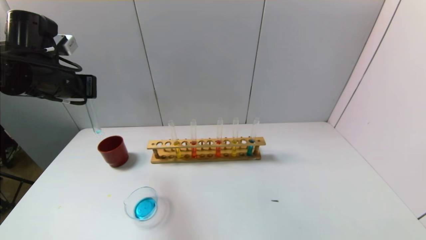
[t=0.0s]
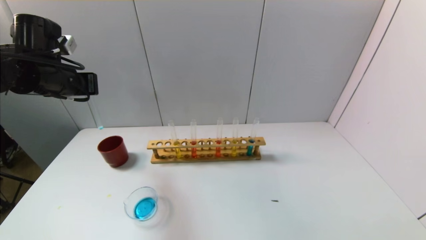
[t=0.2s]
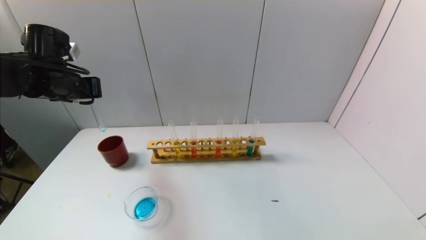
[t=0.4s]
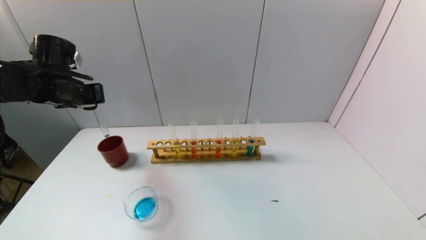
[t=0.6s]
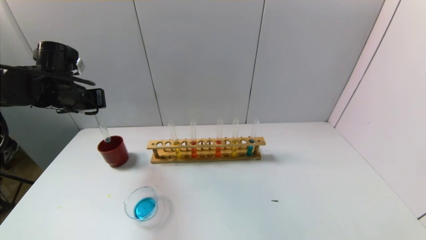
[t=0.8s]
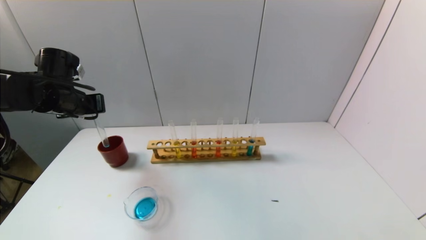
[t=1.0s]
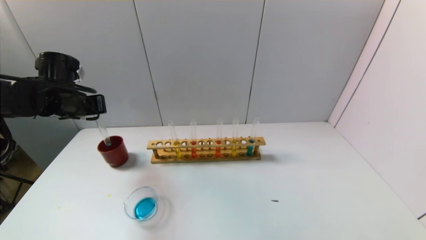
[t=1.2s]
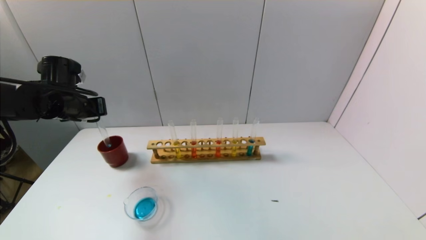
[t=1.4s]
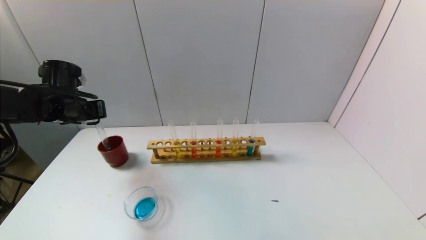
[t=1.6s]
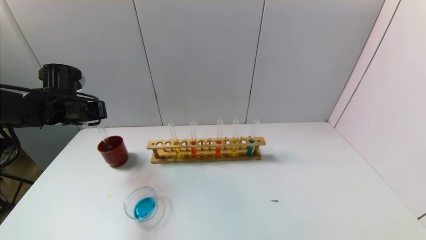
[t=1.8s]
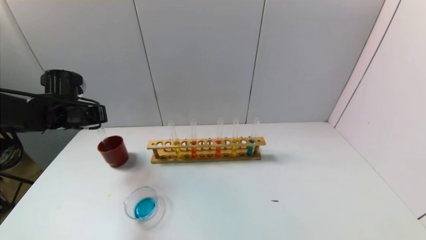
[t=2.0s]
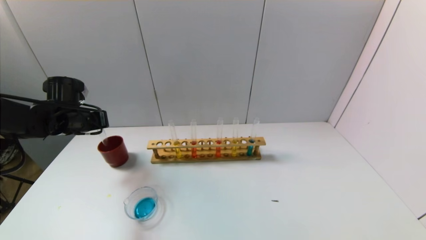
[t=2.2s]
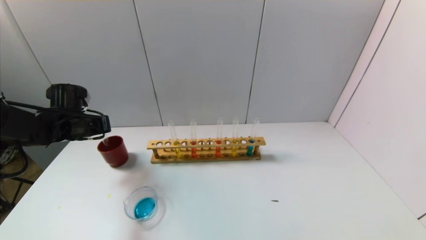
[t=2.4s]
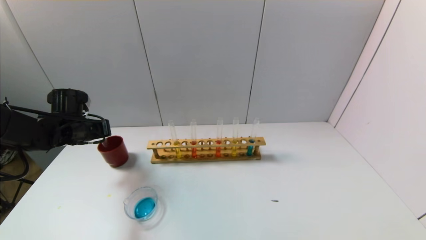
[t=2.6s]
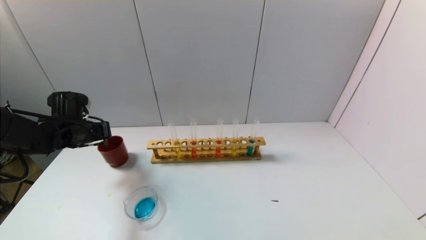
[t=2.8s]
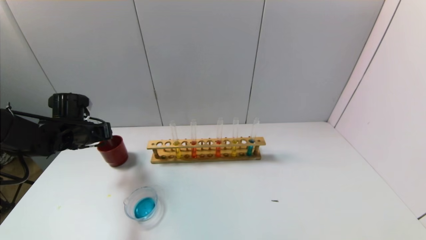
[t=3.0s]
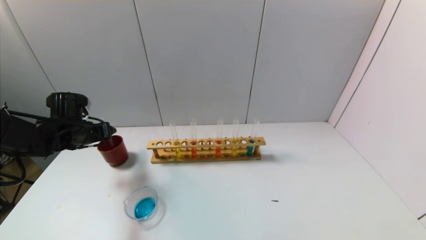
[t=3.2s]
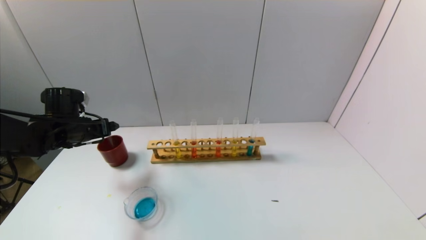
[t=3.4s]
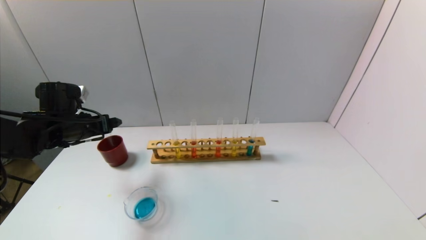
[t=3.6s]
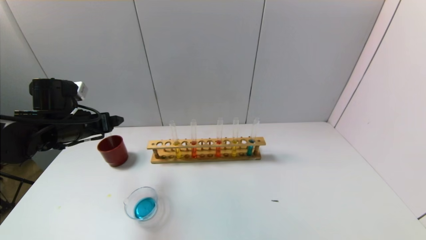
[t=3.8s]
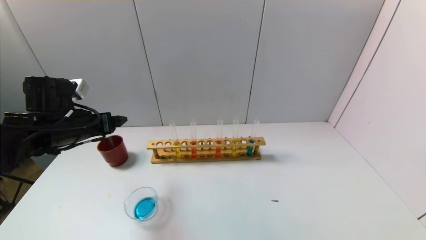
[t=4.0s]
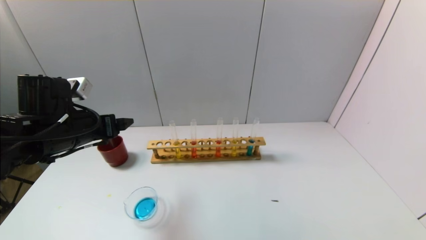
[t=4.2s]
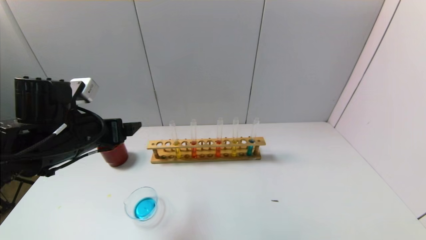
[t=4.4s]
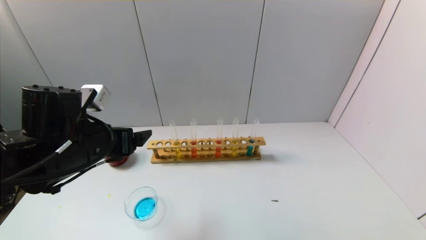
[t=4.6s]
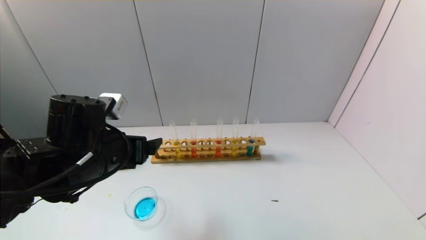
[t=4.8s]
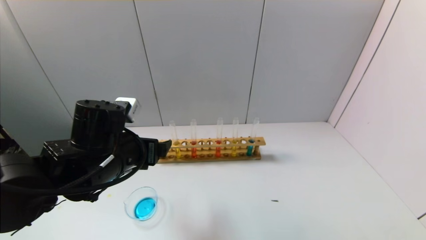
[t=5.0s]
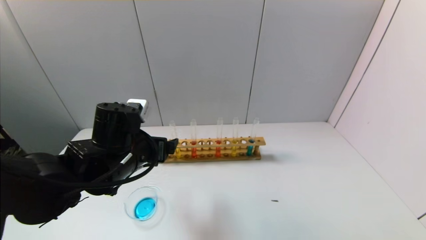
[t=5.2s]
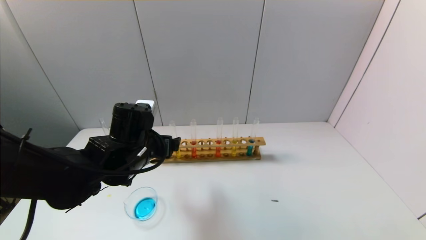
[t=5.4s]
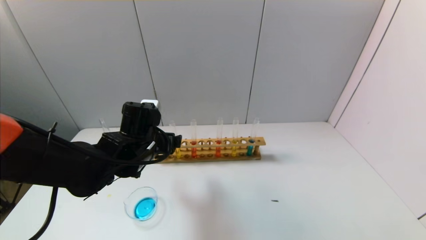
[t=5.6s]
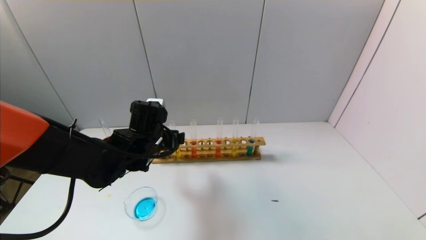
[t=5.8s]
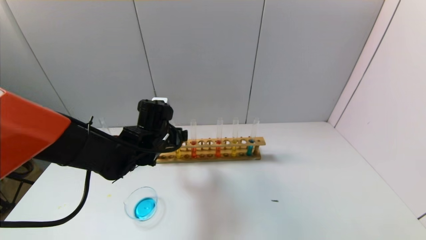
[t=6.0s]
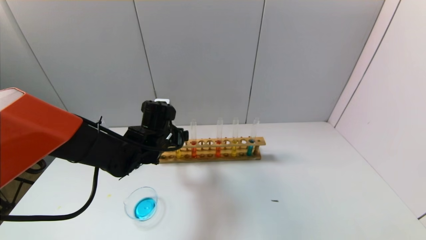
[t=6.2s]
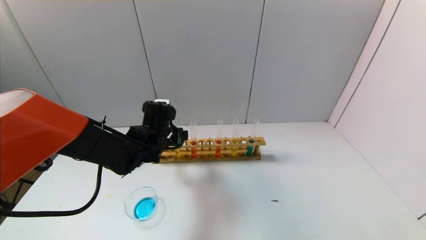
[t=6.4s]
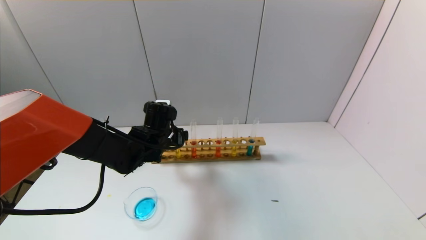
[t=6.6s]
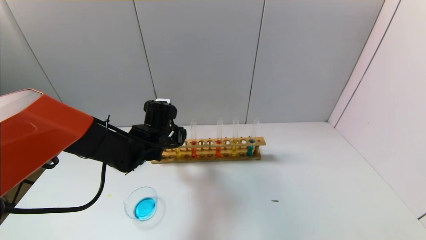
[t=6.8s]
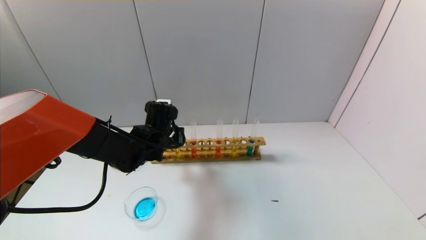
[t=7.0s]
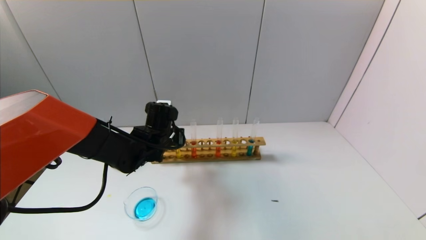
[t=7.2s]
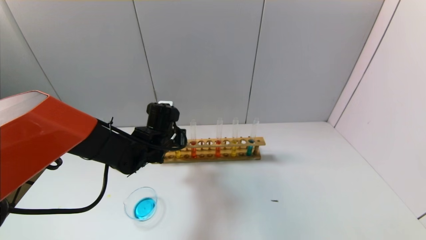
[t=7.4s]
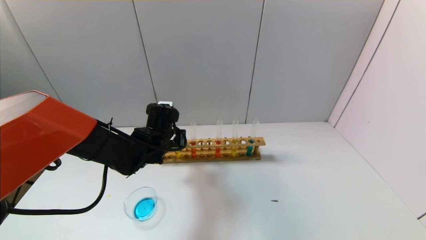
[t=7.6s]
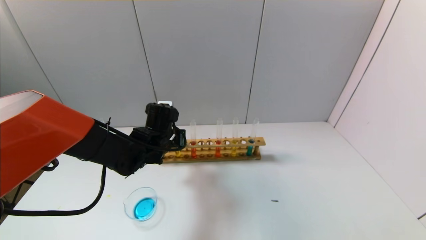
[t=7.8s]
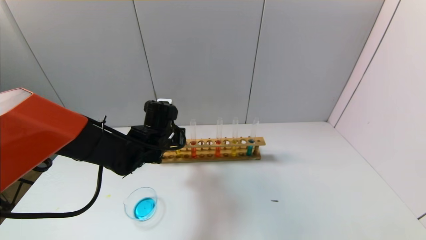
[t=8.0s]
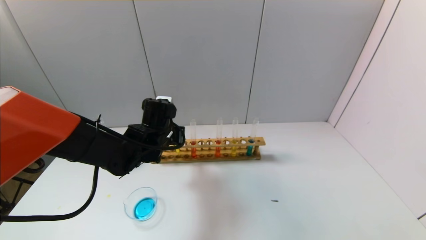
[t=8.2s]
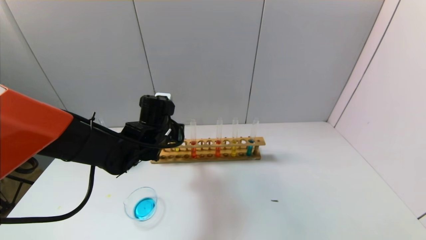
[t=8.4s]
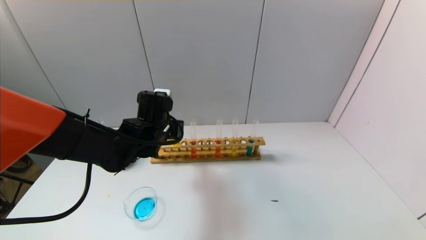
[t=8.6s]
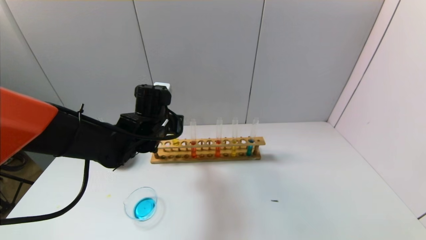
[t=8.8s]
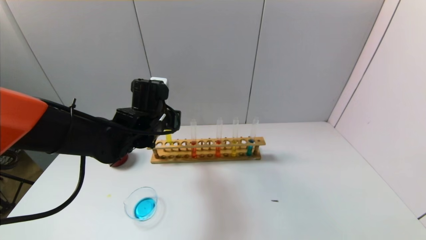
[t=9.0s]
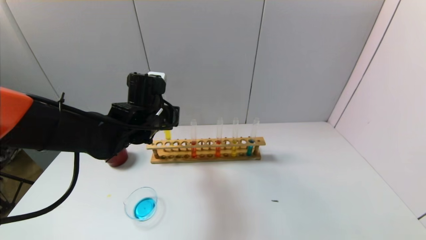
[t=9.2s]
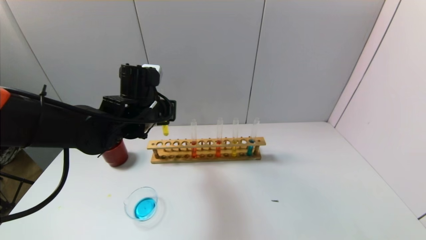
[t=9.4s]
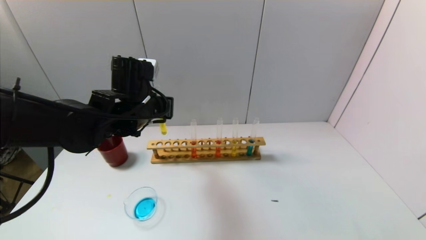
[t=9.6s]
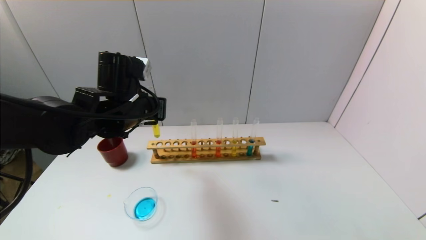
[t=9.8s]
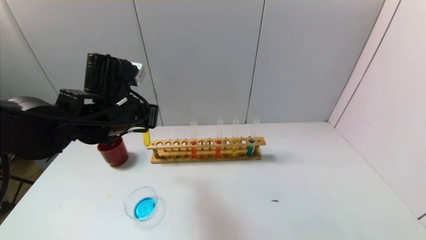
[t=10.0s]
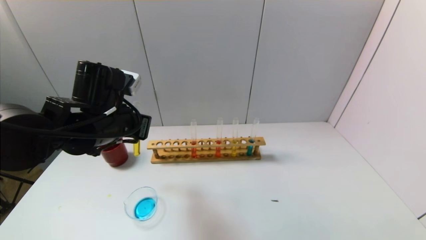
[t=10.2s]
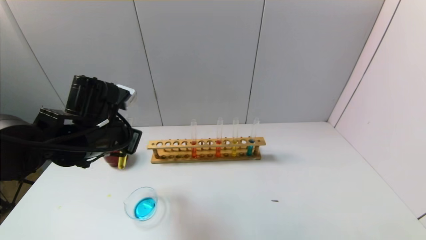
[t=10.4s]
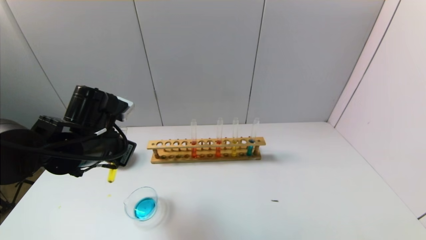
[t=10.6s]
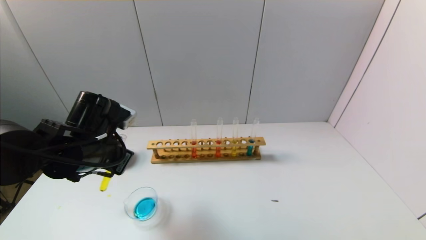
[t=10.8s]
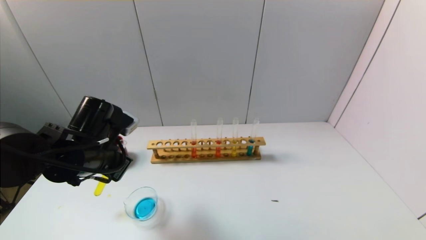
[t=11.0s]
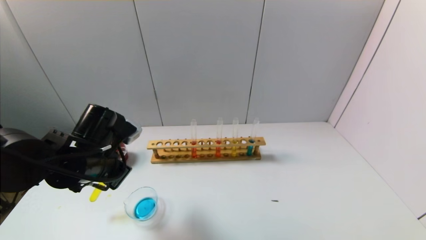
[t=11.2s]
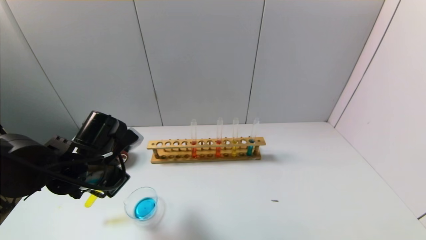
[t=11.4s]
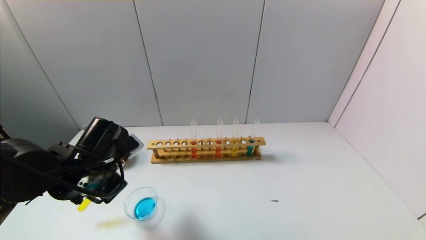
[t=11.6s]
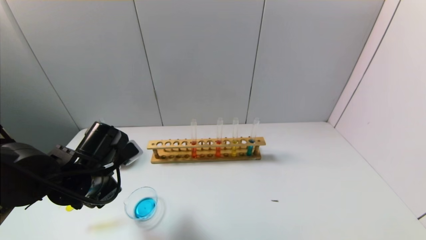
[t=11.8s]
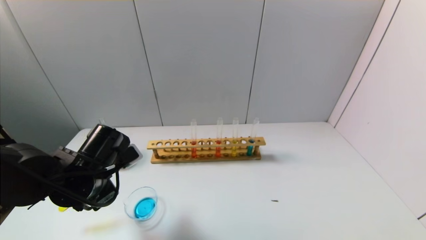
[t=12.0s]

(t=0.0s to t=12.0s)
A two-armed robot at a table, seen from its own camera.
Task of the whole recording: pick up the test tube with yellow pigment and the test tube with blue pigment by grippers and pour them into the beaker.
Step, t=0.0s - t=3.2s: Place the test tube into the brown cup with the left gripper.
Step, t=3.4s - t=7.6s: Grasp the yellow reagent with the left gripper.
t=0.0s - t=1.6s: The left gripper shifts approximately 10 cm downward and forward.
t=1.6s - t=3.0s: The left gripper travels downward by some 5 cm.
t=3.0s - t=4.4s: The left gripper is displaced backward, to the right and upward by approximately 15 cm, and opens.
t=4.4s - t=6.0s: The left gripper travels to the right, forward and downward by approximately 15 cm.
t=6.0s - t=7.6s: The left gripper closes up.
t=7.6s - t=9.0s: The left gripper travels upward by about 5 cm.
t=9.0s - t=10.4s: The left gripper heads backward and to the left, covering roughly 10 cm.
t=10.4s - t=12.0s: The left gripper heads downward, covering about 5 cm.

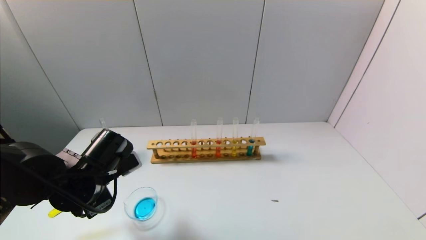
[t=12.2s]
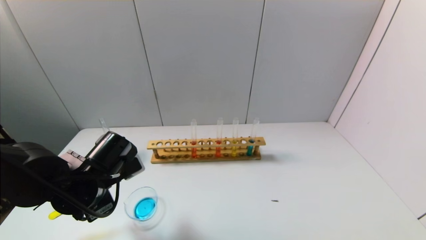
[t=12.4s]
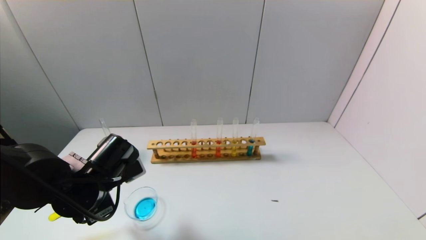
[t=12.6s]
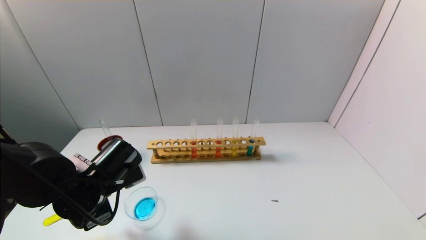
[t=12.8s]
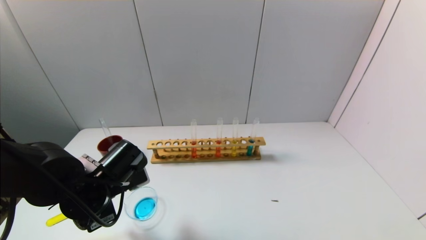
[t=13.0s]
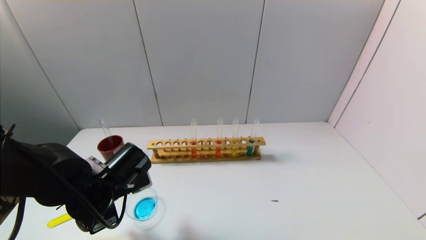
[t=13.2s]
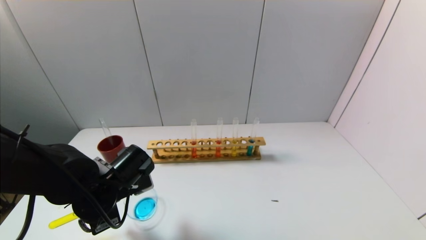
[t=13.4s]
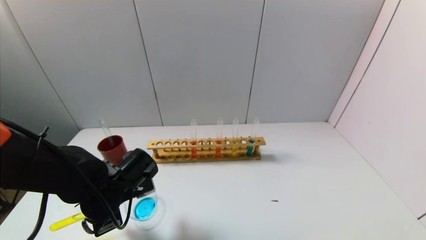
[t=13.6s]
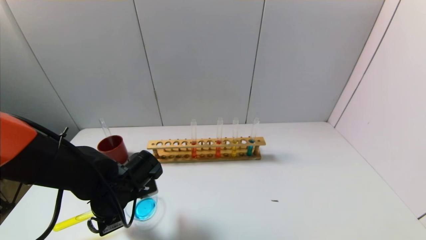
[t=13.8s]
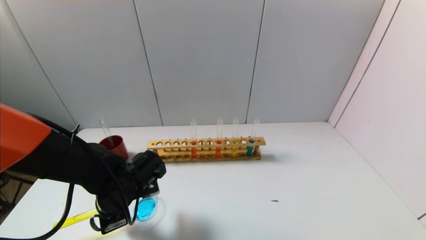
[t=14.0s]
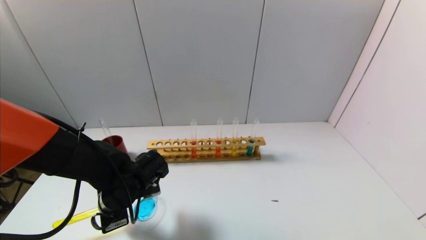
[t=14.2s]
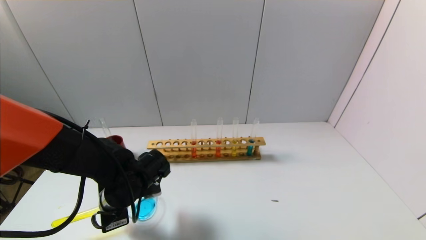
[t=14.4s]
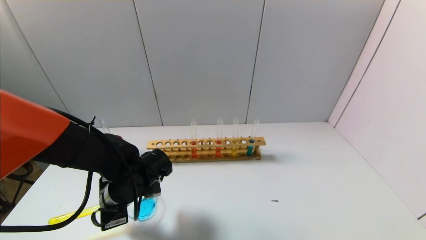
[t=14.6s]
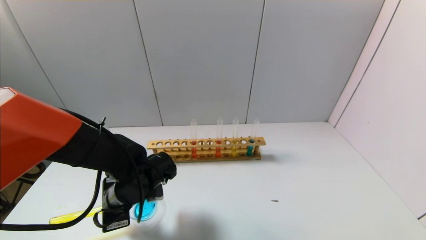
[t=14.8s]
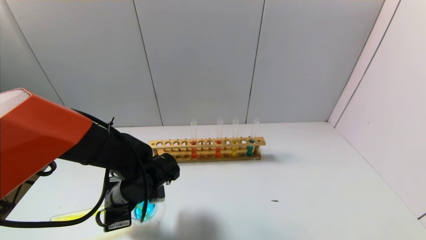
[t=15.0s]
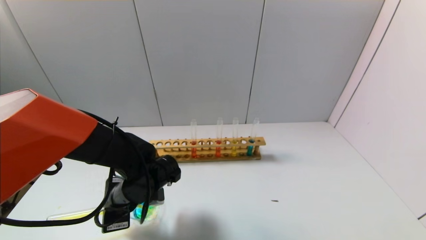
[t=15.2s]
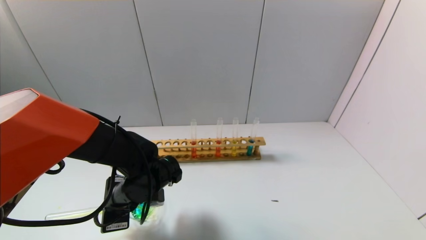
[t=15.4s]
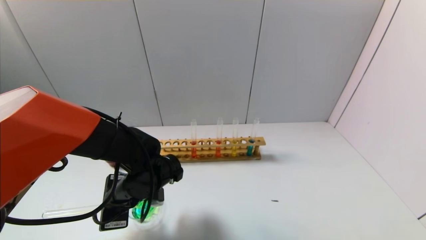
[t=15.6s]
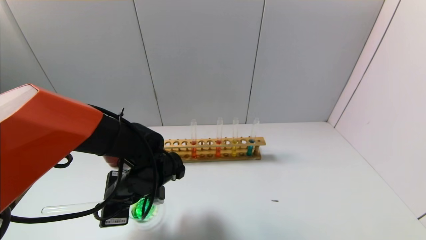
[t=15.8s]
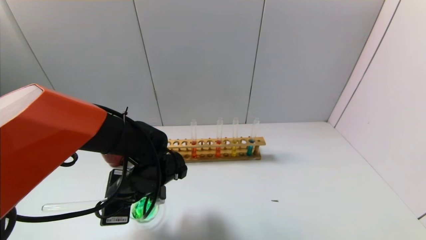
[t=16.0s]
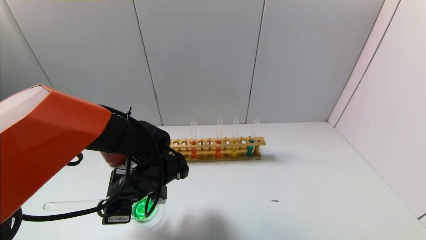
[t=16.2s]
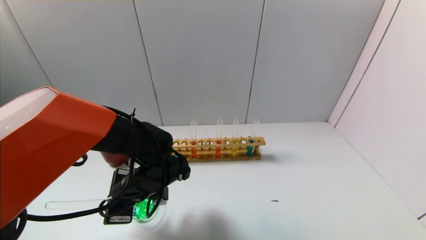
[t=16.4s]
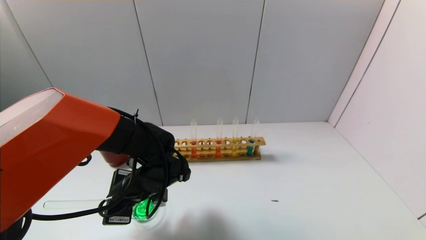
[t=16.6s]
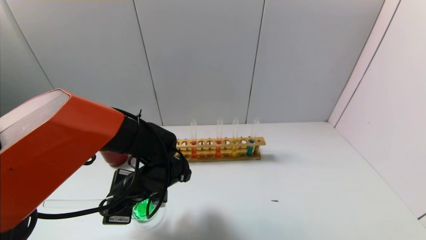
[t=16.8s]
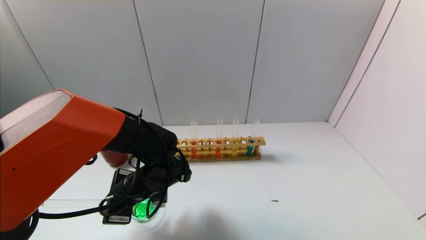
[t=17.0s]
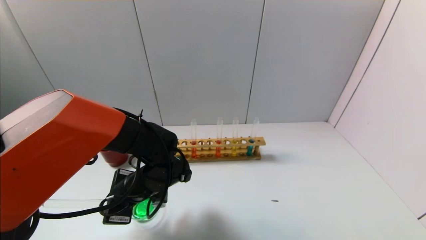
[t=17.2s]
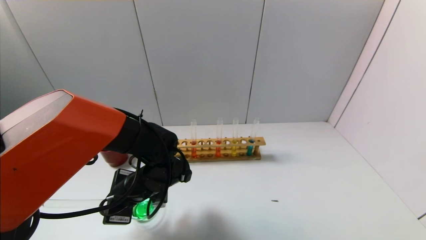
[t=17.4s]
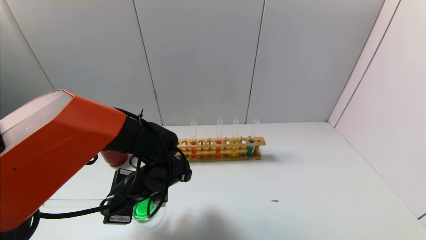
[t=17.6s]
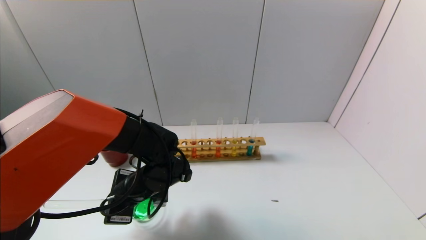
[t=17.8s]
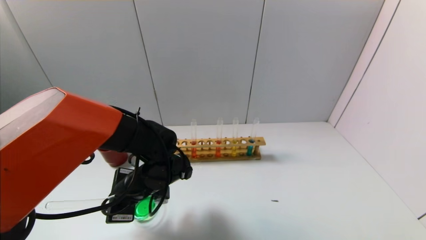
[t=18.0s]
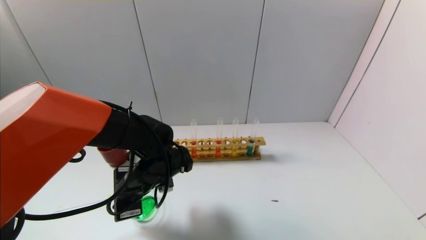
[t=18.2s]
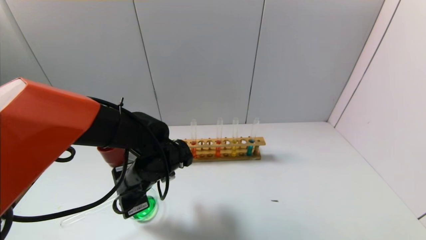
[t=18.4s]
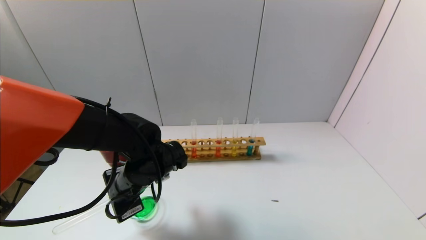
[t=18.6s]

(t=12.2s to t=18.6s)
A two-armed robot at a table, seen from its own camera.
Task of the whole recording: pick up the test tube with yellow pigment and the test tube with blue pigment by grippers and pour them into the beaker.
Step, t=12.2s - t=18.0s: Pour the yellow reagent into the graduated cylinder with the left gripper.
t=12.2s - t=13.8s: The left gripper ends up roughly 5 cm from where it was.
t=15.4s - t=17.0s: The grippers move only a little.
